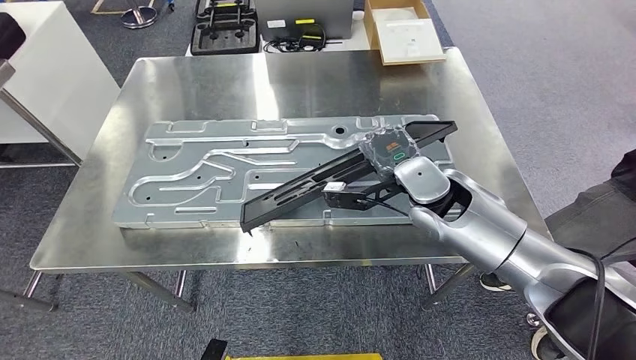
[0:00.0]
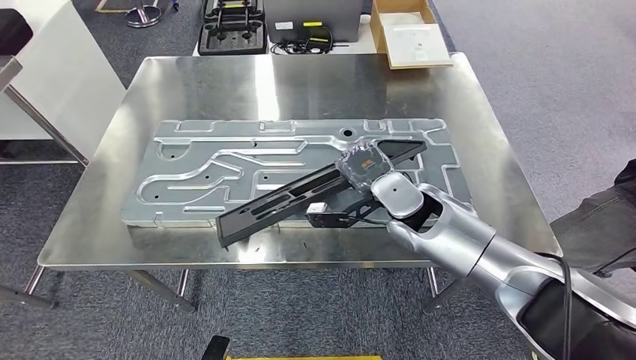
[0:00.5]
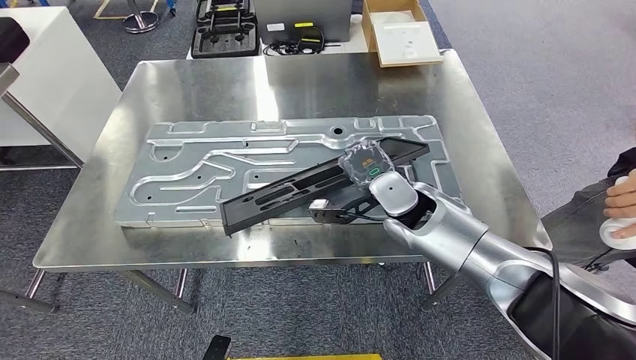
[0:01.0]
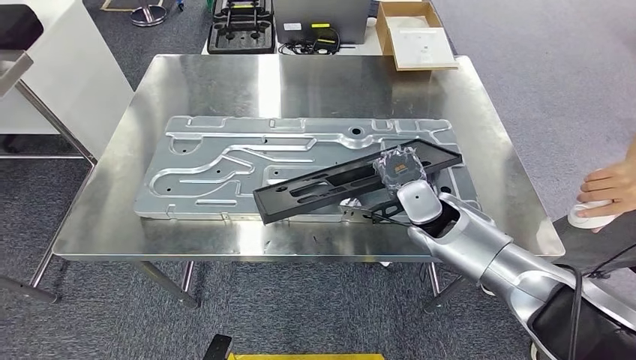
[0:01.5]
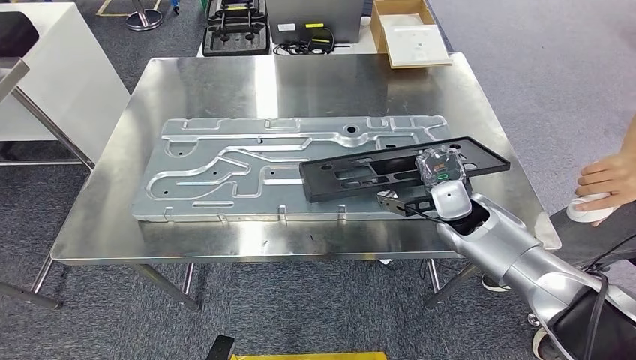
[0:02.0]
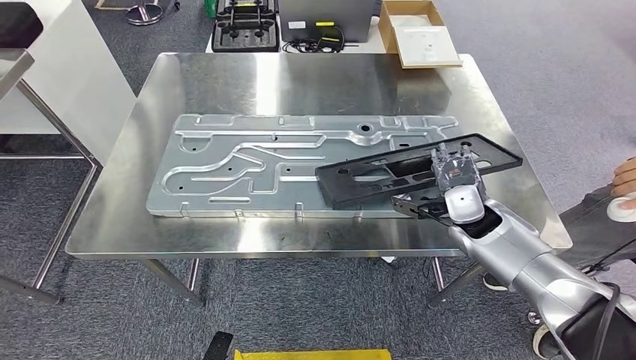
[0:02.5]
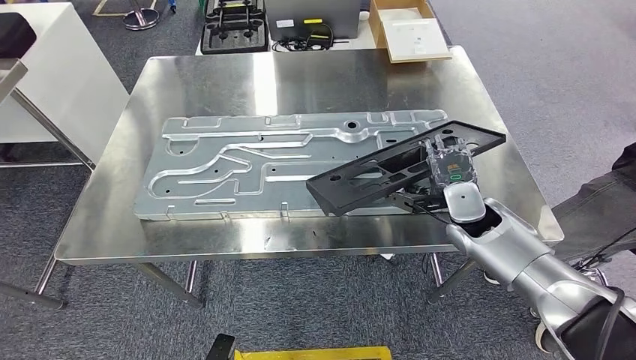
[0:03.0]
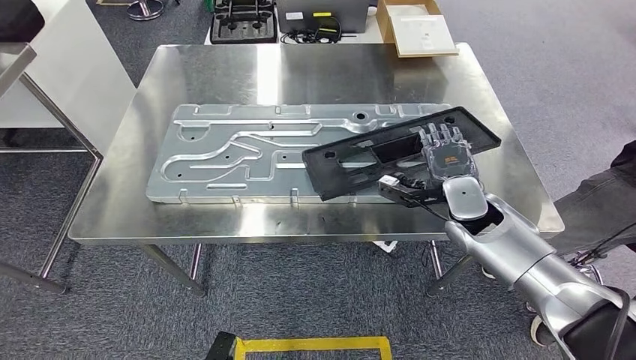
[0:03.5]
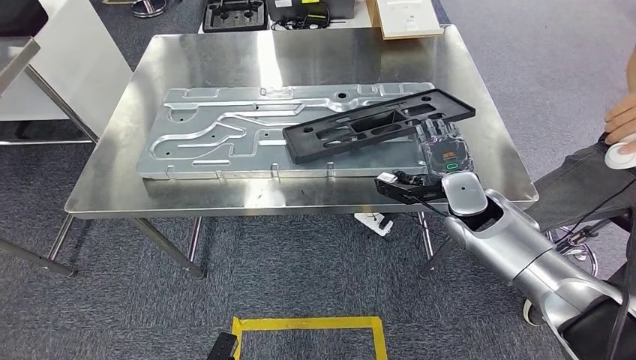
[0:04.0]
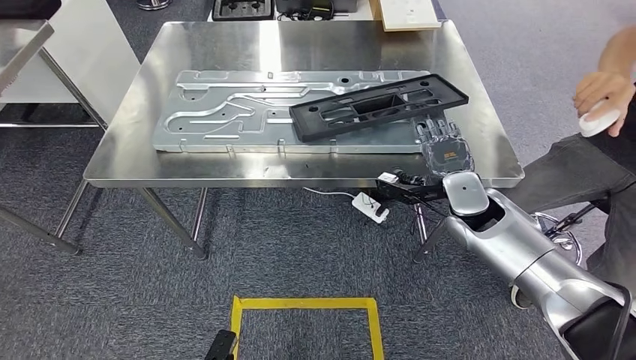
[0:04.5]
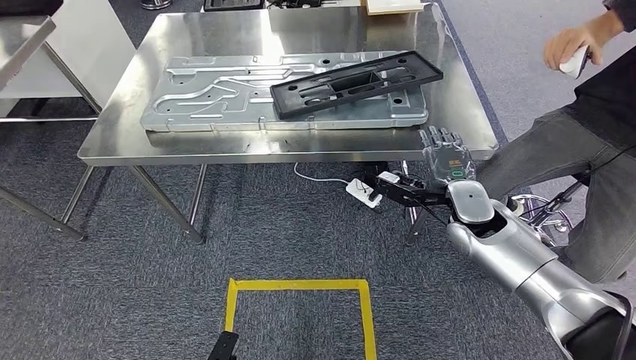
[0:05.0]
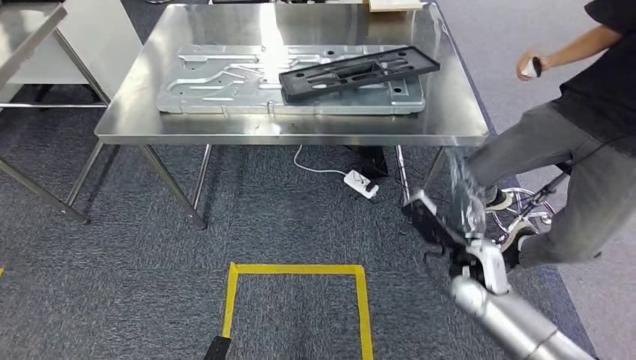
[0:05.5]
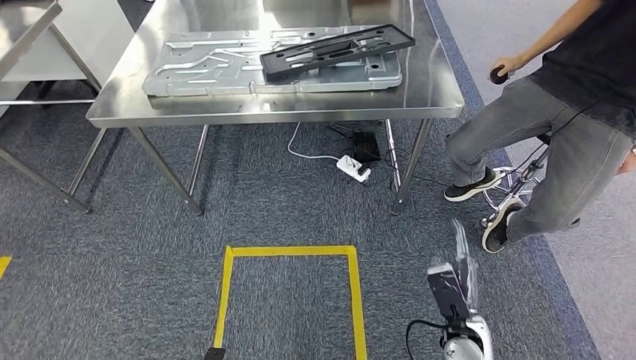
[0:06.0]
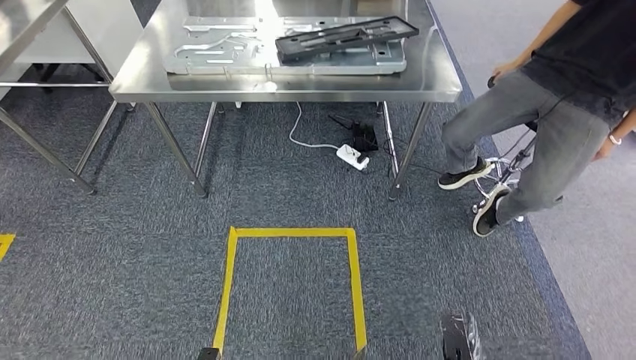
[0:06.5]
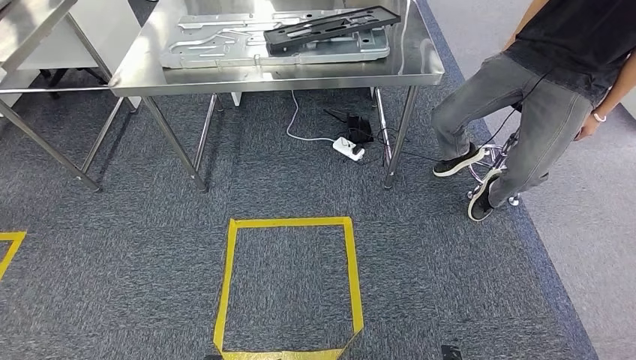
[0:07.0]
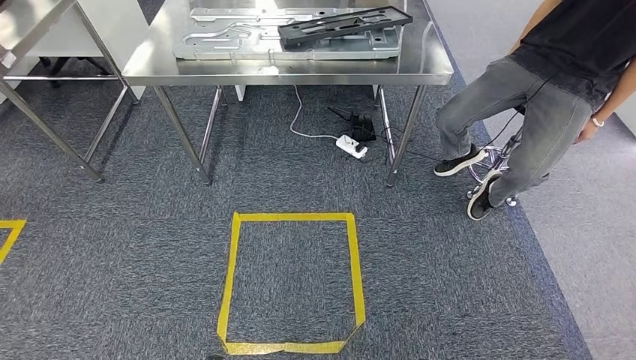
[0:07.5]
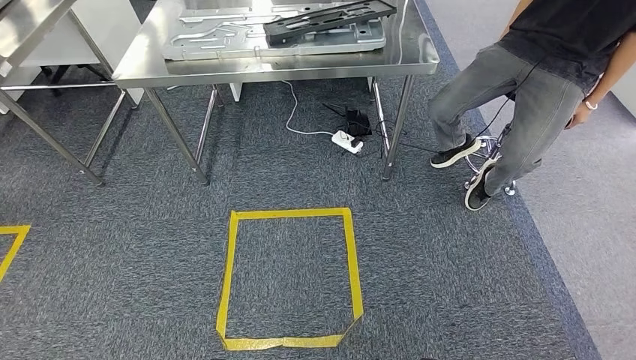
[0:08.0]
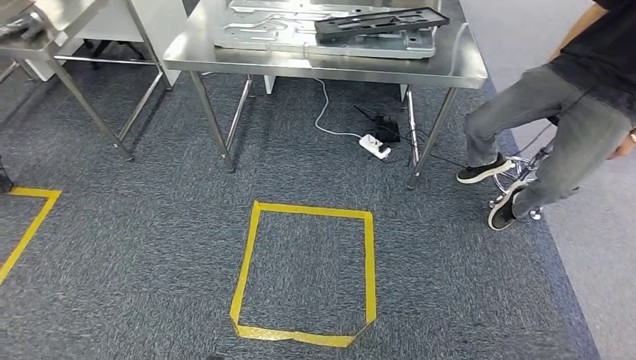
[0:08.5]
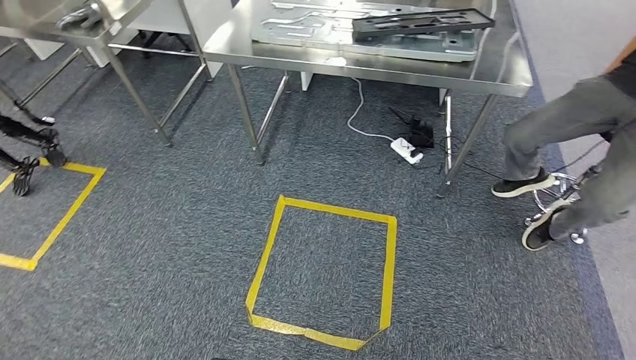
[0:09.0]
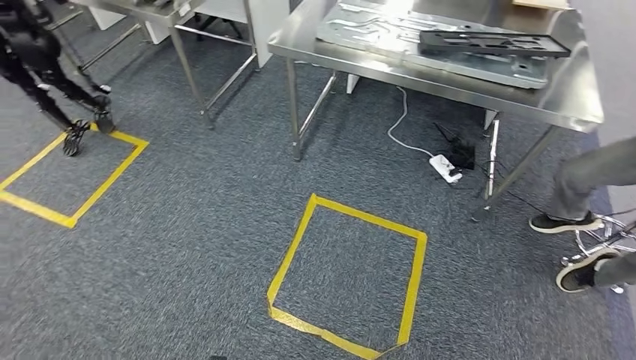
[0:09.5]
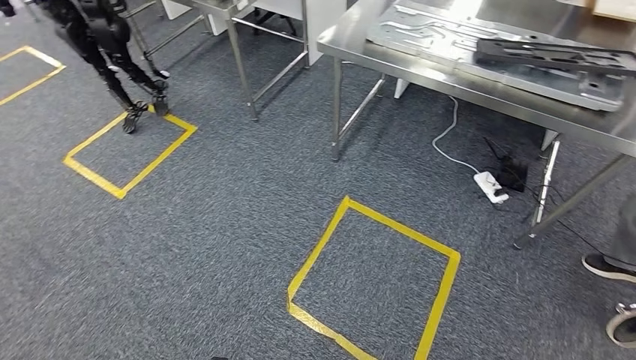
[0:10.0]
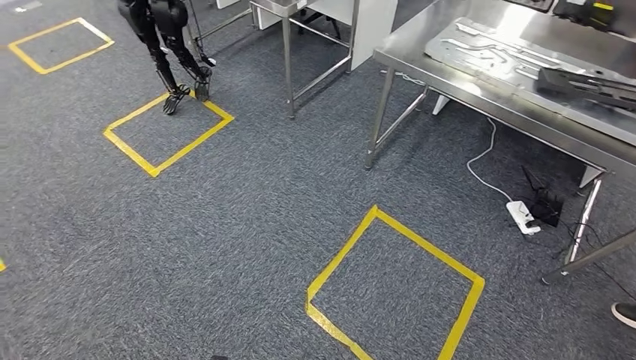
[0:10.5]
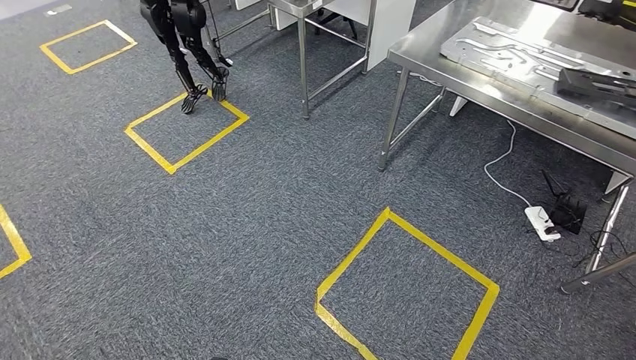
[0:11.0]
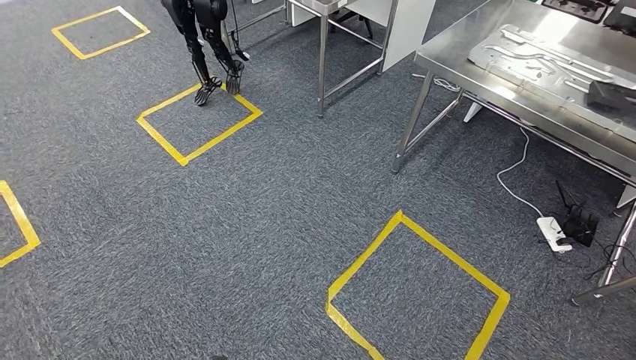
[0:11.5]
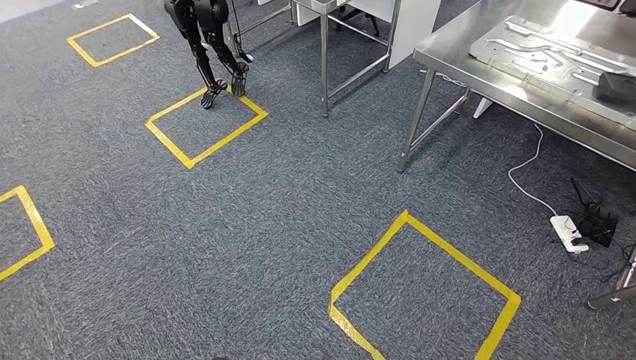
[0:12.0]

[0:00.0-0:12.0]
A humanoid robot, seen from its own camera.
Step, 0:00.0 to 0:06.5: Insert the large material into the corresponding hole on the workbench.

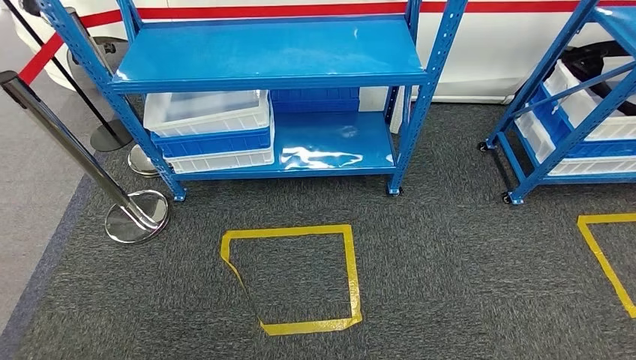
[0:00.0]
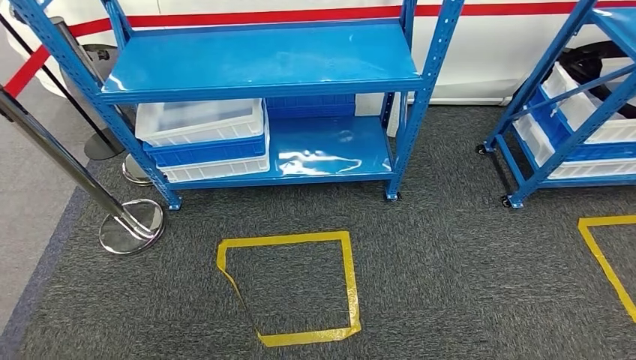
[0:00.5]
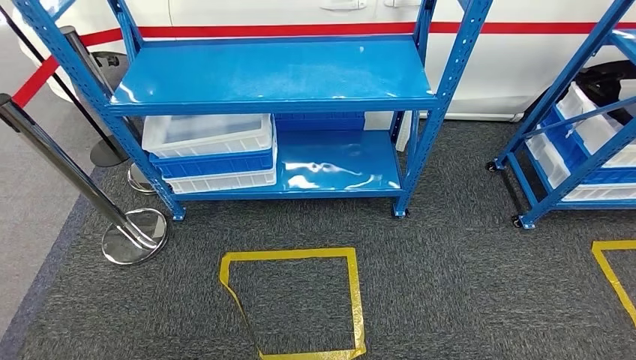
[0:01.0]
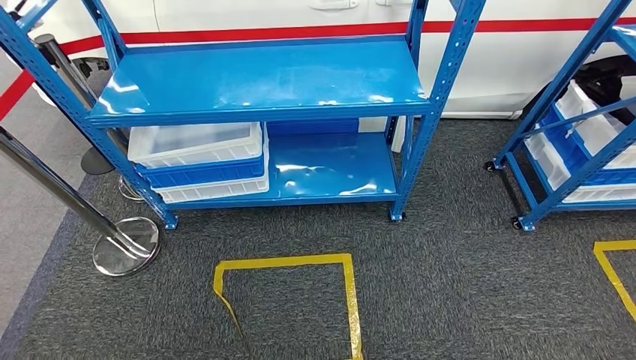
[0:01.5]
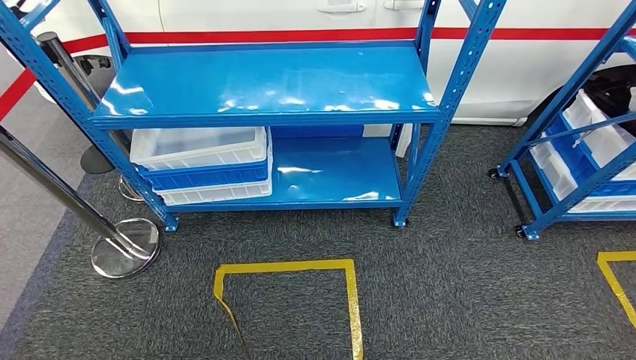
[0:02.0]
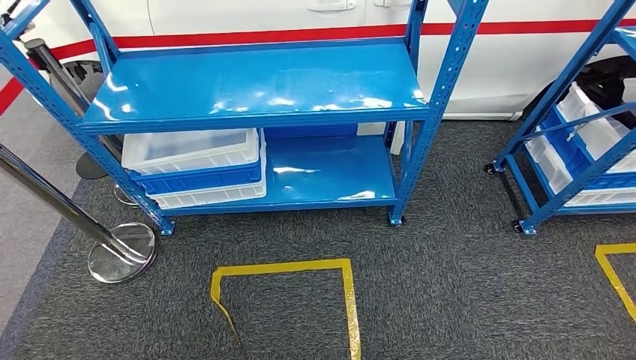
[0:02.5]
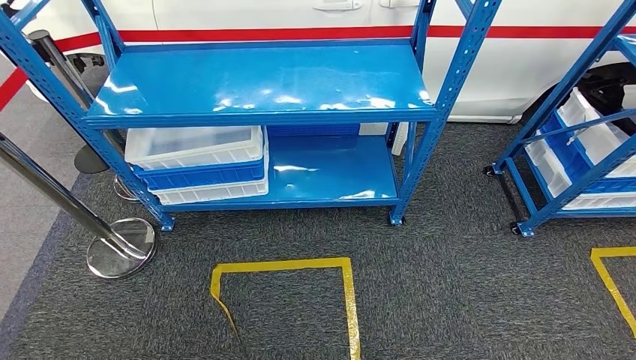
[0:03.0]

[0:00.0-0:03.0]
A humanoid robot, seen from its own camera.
Step, 0:00.0 to 0:03.0: Move to the initial position of the shelf.
